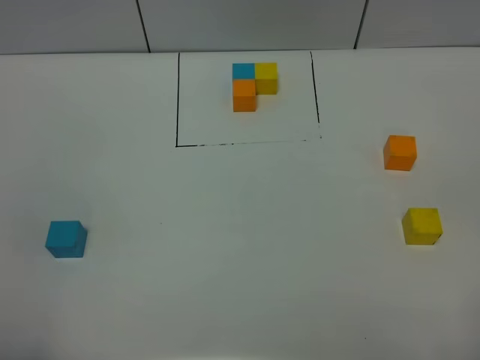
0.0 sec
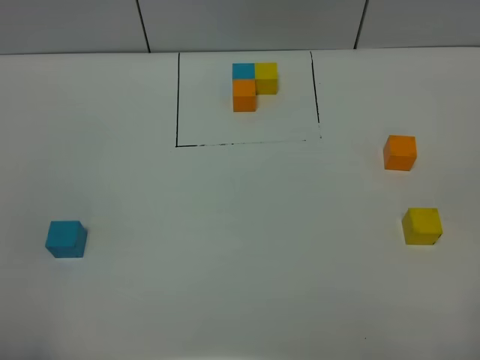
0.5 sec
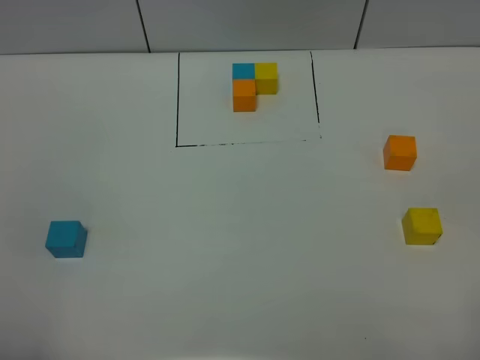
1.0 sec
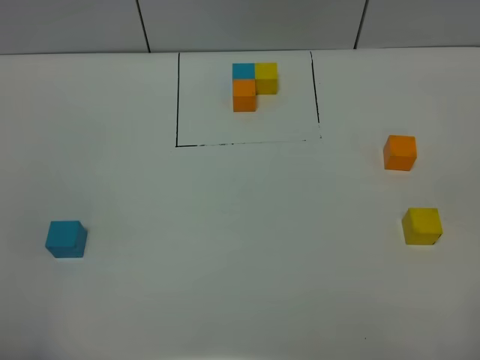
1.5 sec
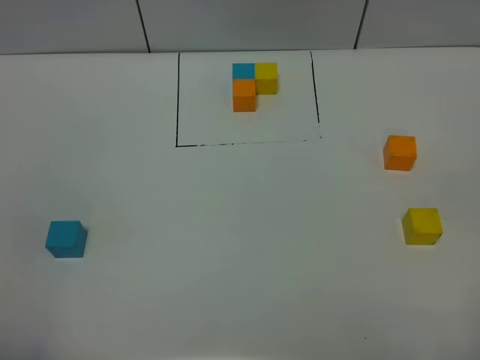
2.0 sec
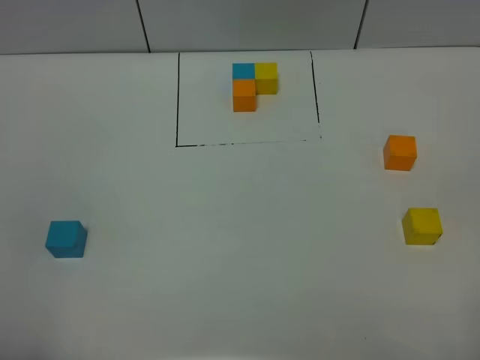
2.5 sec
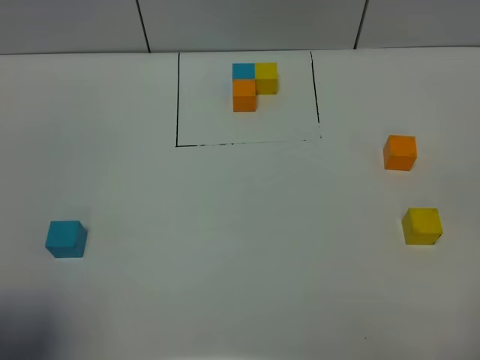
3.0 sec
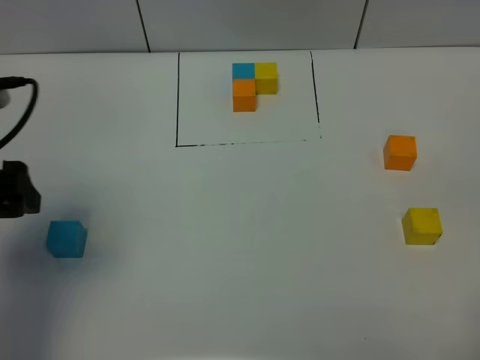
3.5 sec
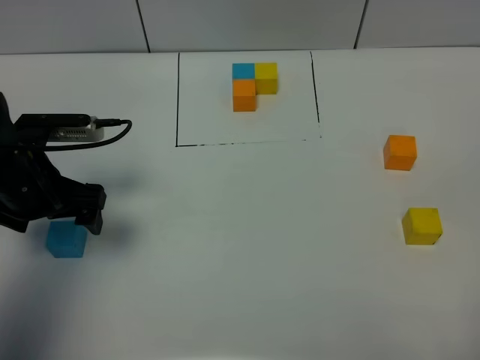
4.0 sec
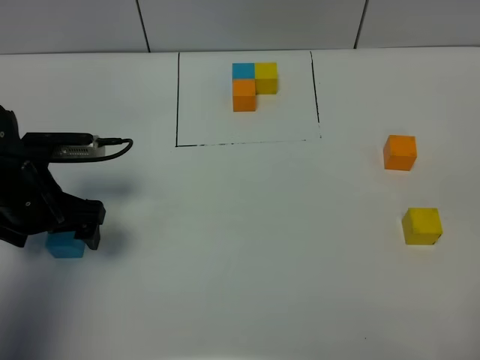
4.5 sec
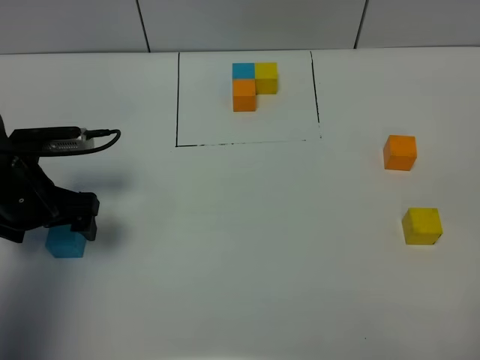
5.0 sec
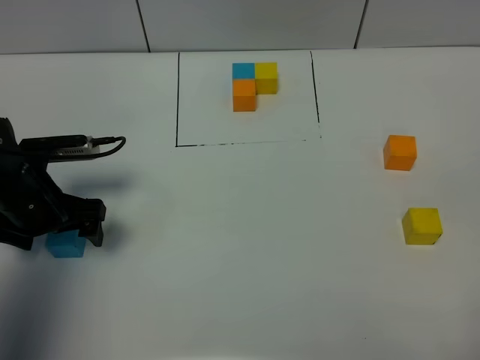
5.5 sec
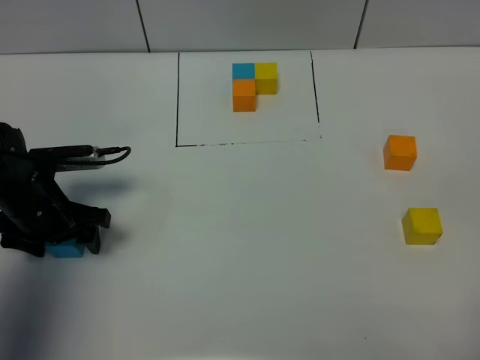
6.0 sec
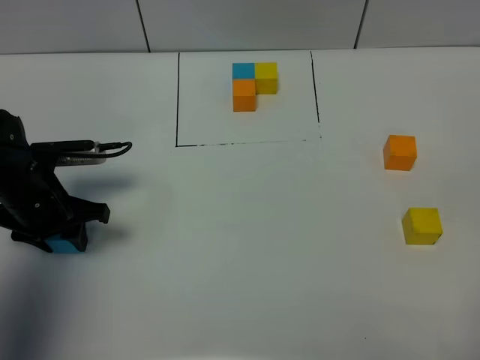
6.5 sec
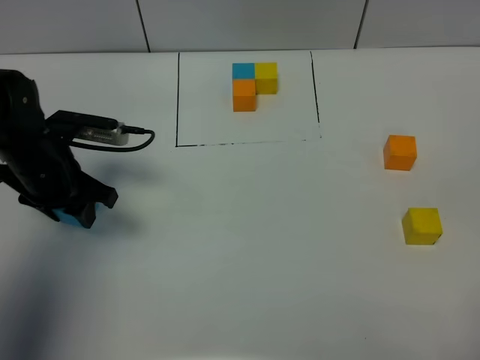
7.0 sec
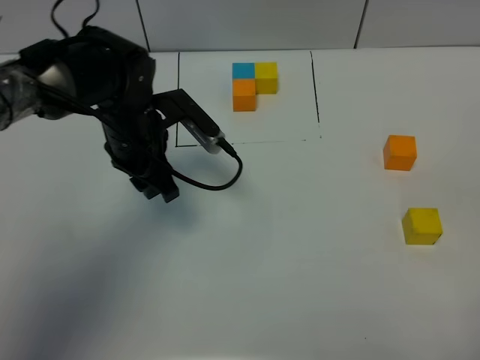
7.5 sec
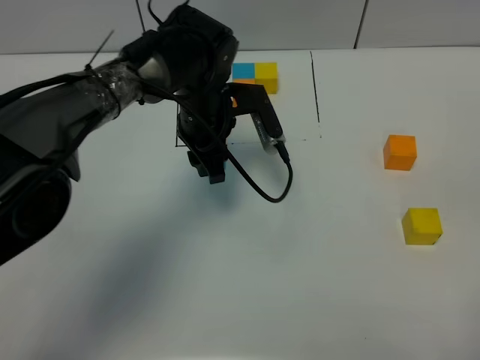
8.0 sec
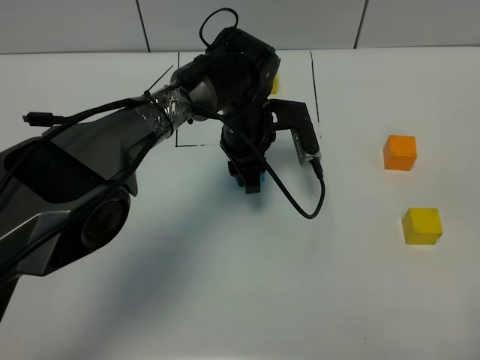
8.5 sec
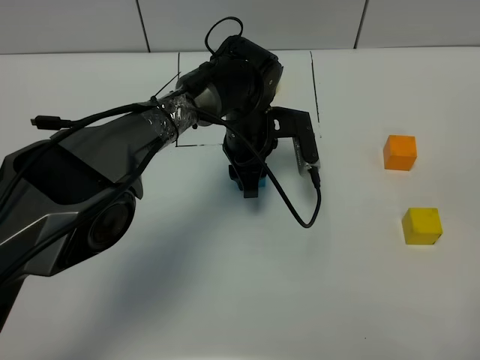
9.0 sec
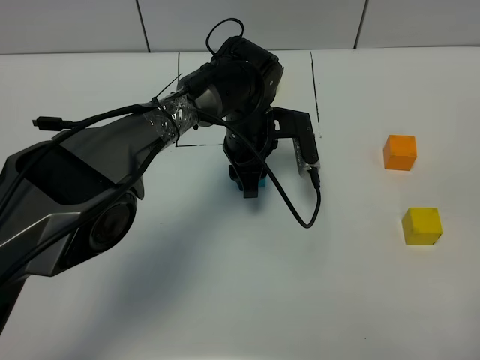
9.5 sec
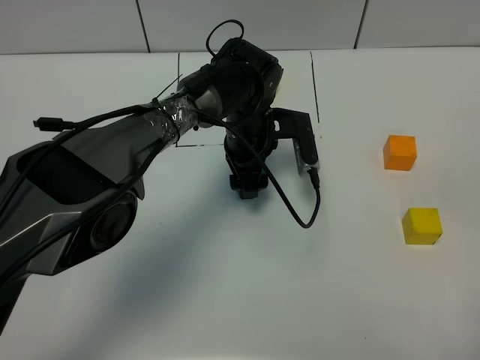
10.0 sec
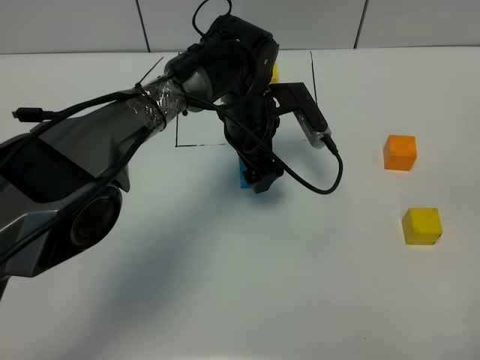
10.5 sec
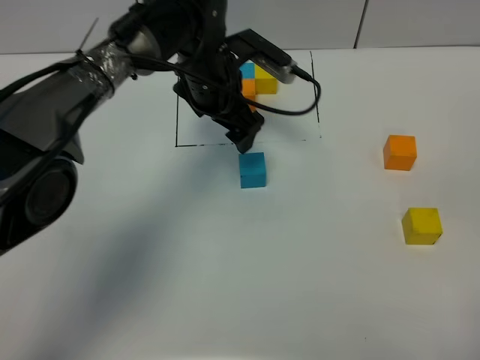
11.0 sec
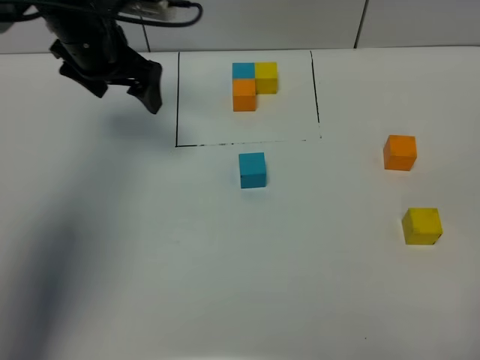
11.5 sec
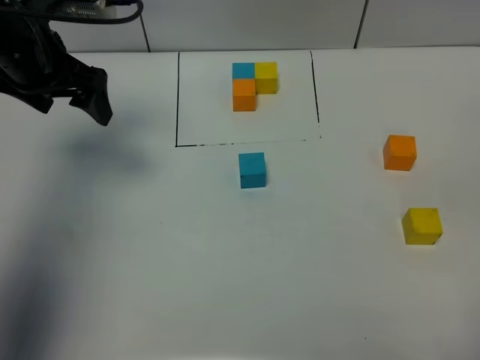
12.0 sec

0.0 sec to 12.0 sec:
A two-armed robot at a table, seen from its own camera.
Task of the whole recording: According to the building block template in front, assemble the scattered blocks together.
Step, 0.0 sec to 9.5 sec: Put the blue build block in the center of the table.
0.0 sec to 2.0 sec: Both grippers stay put.
2.0 sec to 4.0 sec: The left gripper is displaced forward by roughly 30 cm.
4.0 sec to 6.0 sec: The left gripper heads downward, covering approximately 5 cm, and closes.
6.0 sec to 8.0 sec: The left gripper shifts some 25 cm to the right and forward, and closes up.
8.0 sec to 10.0 sec: The left gripper shifts by roughly 5 cm, and opens up.
10.0 sec to 12.0 sec: The left gripper travels to the left and upward by approximately 30 cm.

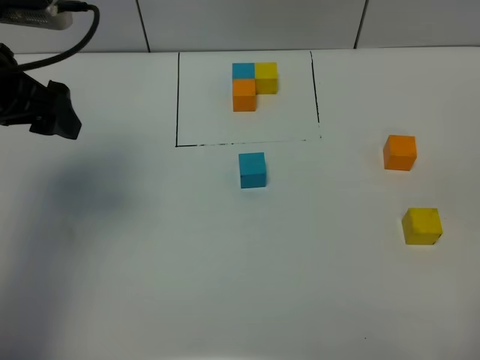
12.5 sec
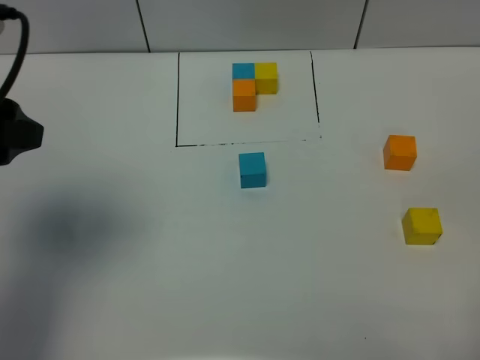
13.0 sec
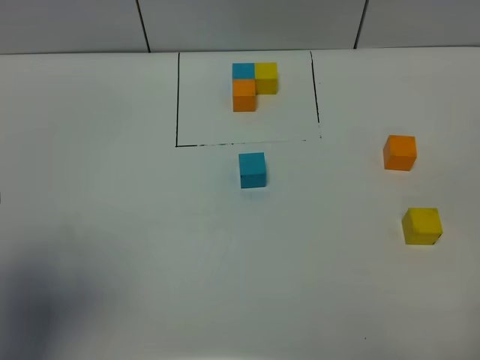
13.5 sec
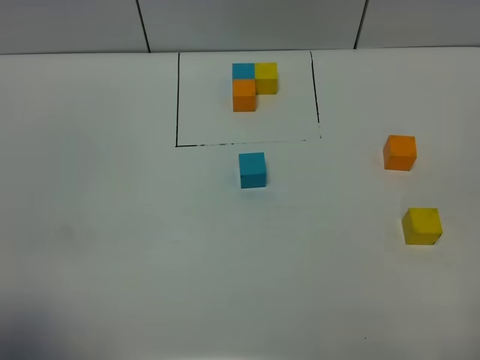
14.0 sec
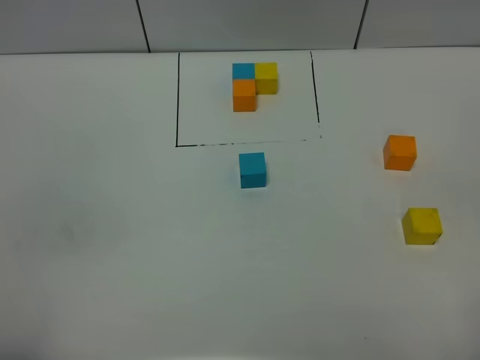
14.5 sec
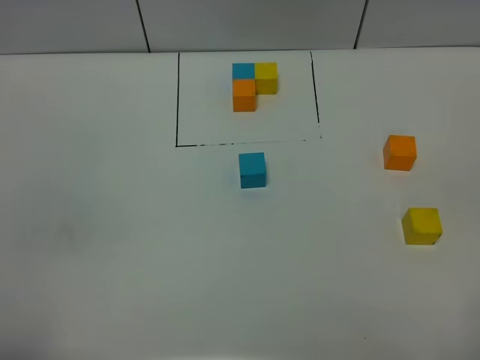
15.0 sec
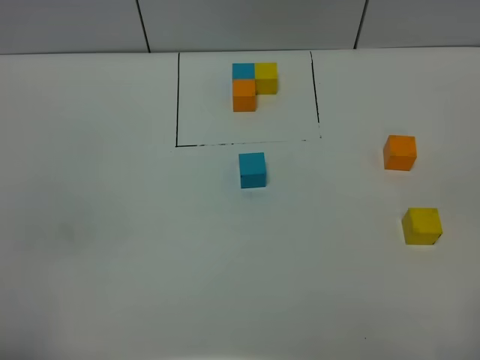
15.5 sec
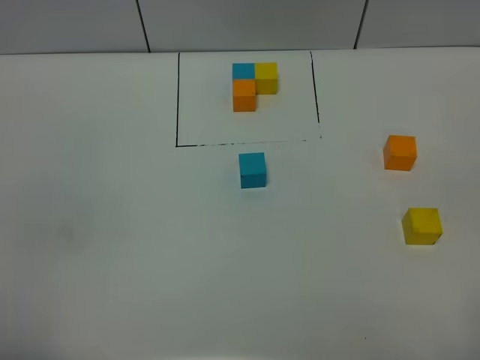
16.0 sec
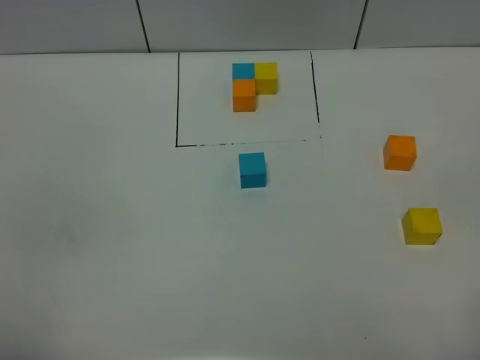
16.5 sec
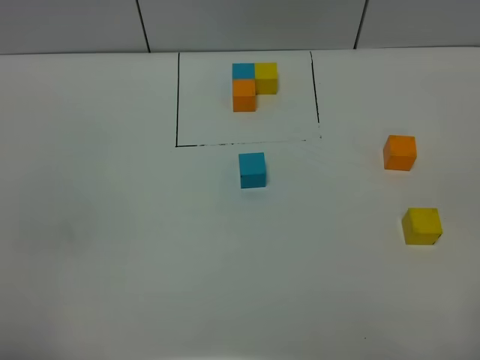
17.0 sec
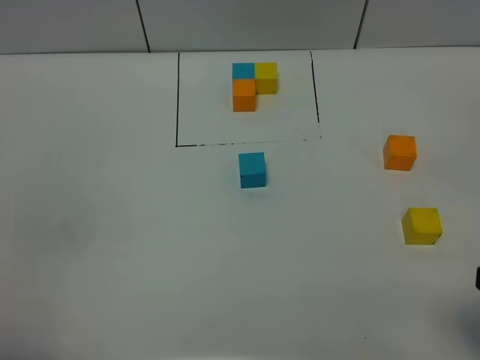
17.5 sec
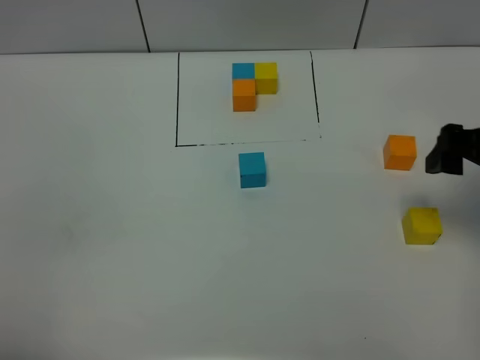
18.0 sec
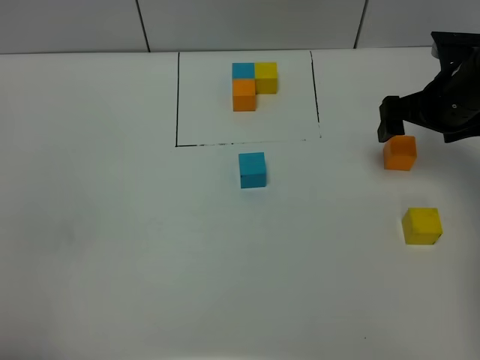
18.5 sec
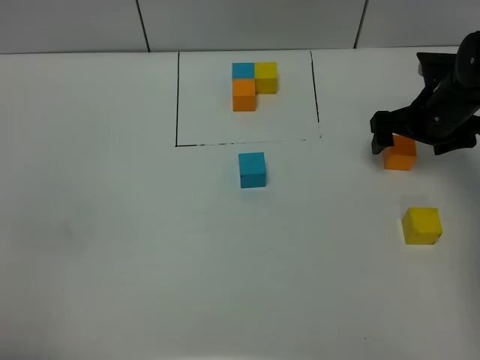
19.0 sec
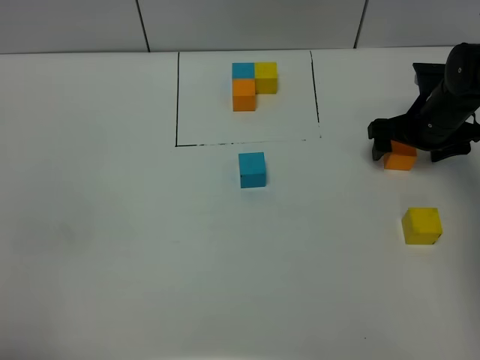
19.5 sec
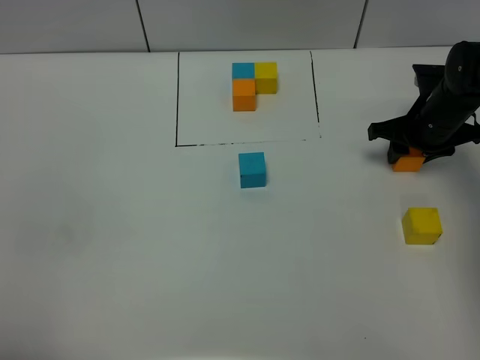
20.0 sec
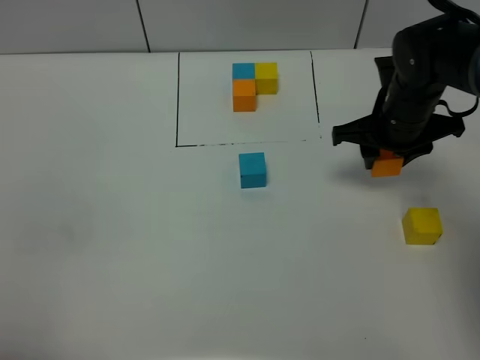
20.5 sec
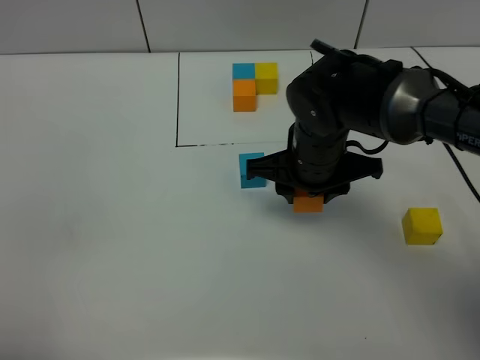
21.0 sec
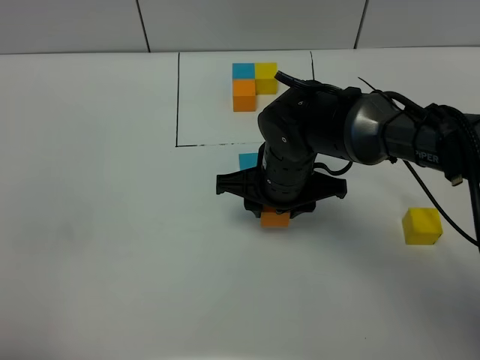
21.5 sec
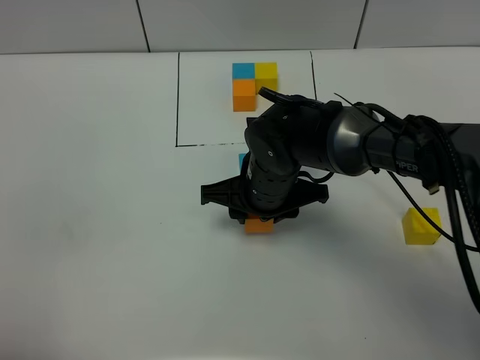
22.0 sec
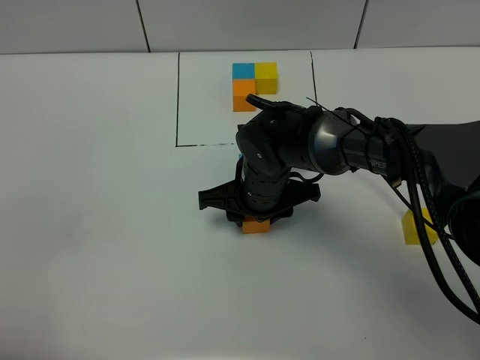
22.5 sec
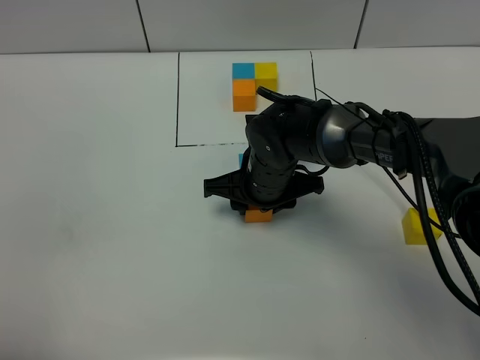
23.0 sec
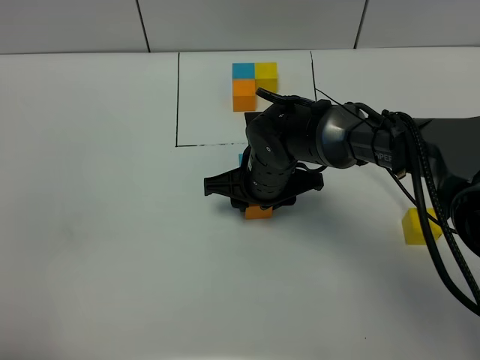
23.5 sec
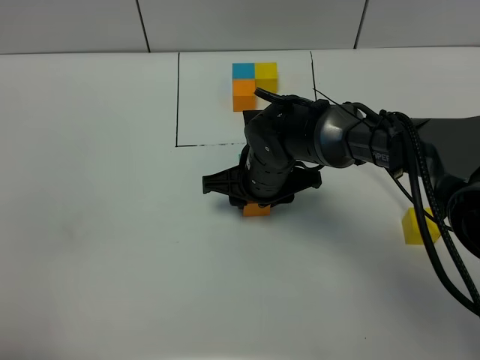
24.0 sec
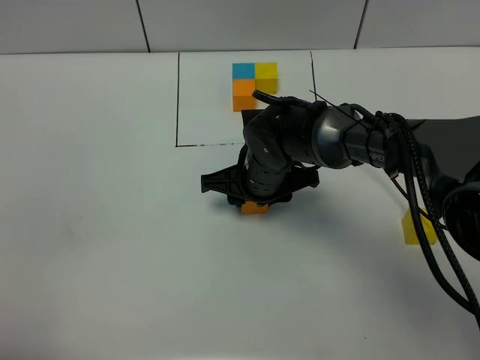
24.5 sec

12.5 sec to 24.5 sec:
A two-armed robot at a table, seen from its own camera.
Task of the whole recording: According to the building block template in front, assemble the scattered blocks together.
12.5 sec to 14.5 sec: The left gripper is displaced backward by about 30 cm.
16.5 sec to 18.5 sec: The right gripper travels forward by roughly 40 cm.
18.5 sec to 20.5 sec: The right gripper goes some 10 cm to the left, and closes.
20.5 sec to 22.5 sec: The right gripper travels to the left by approximately 15 cm.
22.5 sec to 24.5 sec: There are only small adjustments of the grippers.

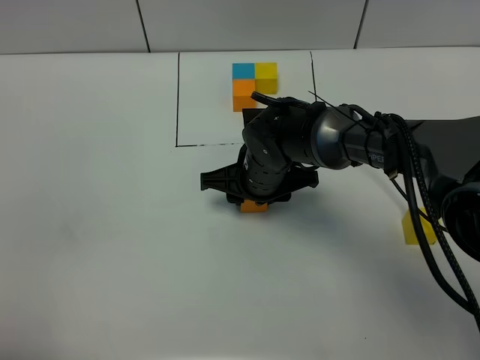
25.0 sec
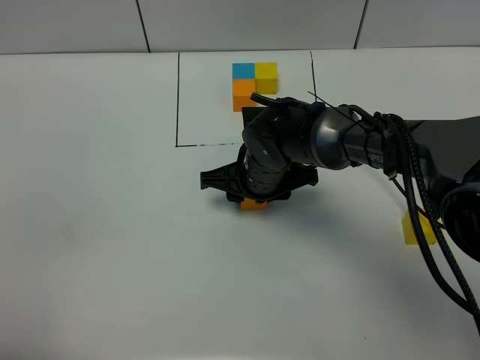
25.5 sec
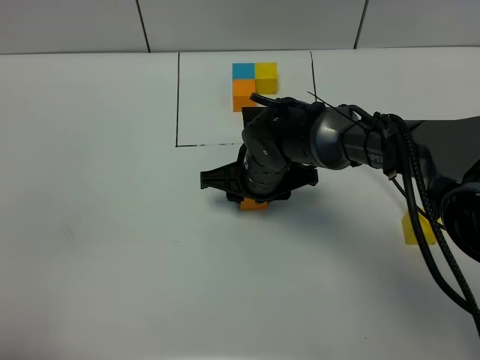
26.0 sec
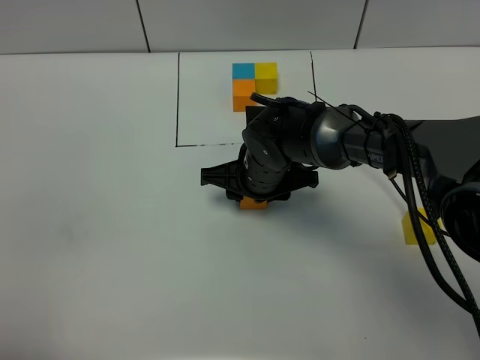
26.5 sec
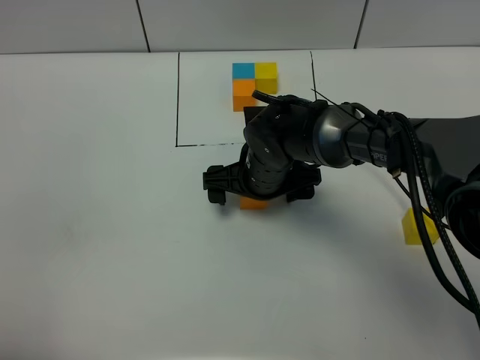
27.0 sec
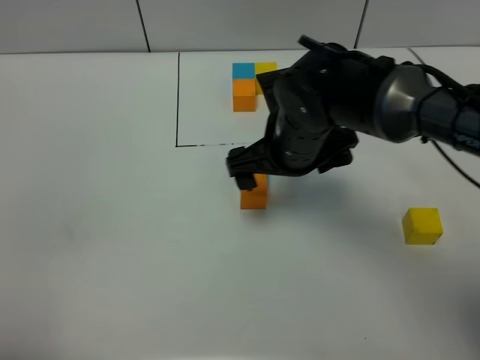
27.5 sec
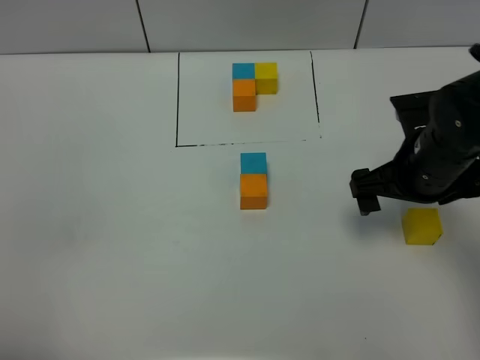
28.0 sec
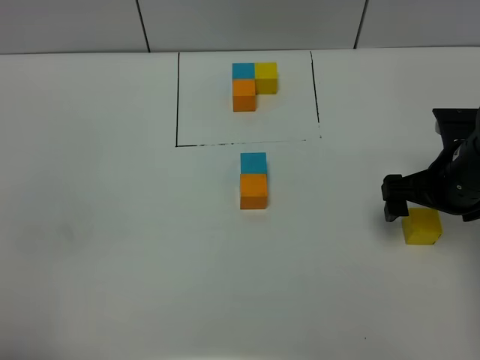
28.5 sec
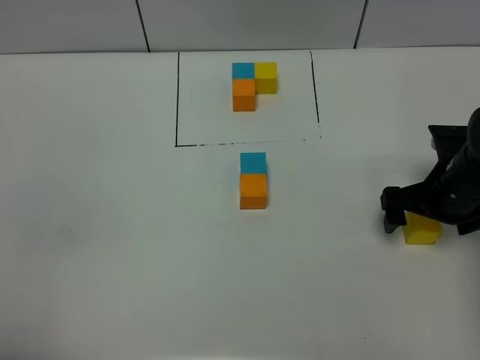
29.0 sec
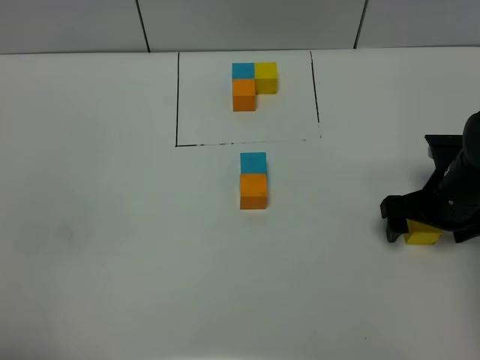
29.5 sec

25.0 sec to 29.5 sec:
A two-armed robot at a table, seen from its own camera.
Task of the whole recording: According to the building block template in front, assemble the scattered blocks together.
25.0 sec to 27.0 sec: The right gripper opens up.
27.0 sec to 29.5 sec: The right gripper heads to the right, covering about 25 cm.
